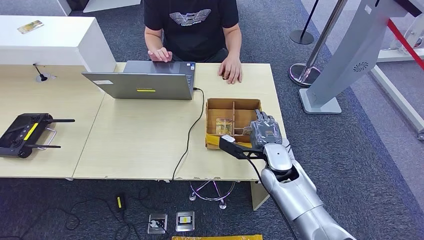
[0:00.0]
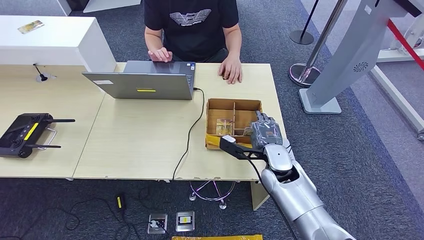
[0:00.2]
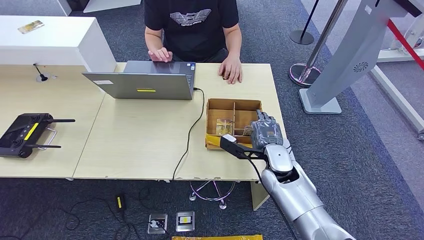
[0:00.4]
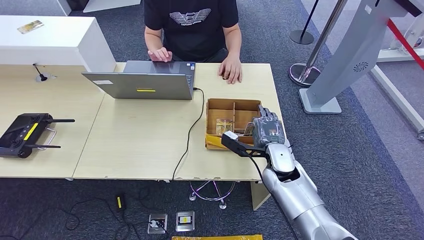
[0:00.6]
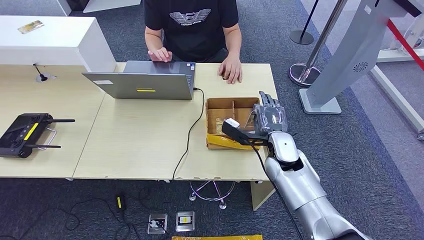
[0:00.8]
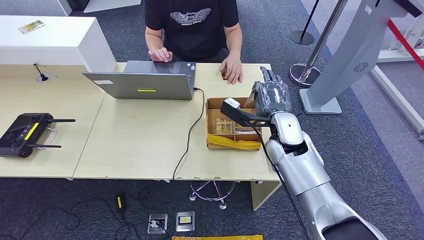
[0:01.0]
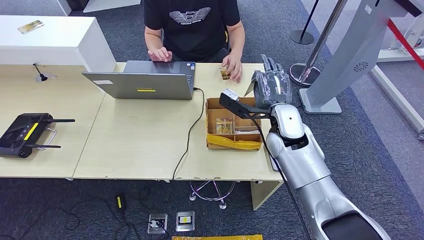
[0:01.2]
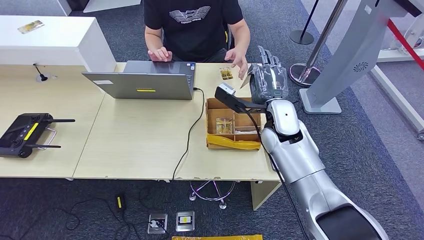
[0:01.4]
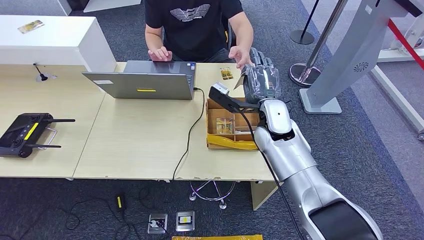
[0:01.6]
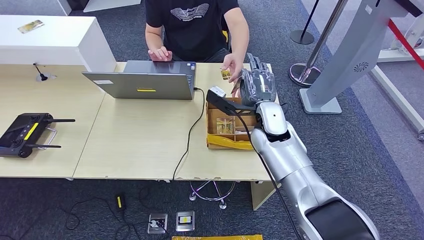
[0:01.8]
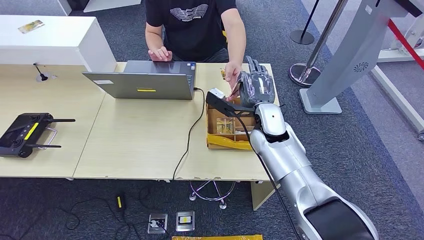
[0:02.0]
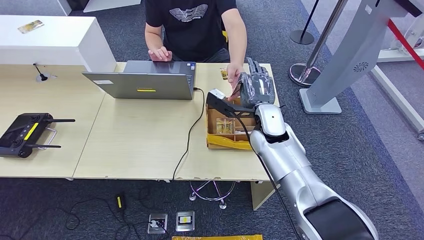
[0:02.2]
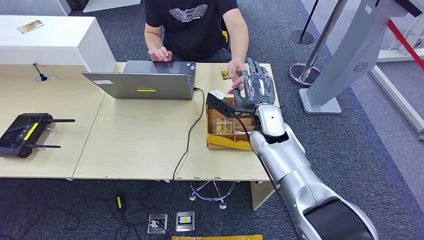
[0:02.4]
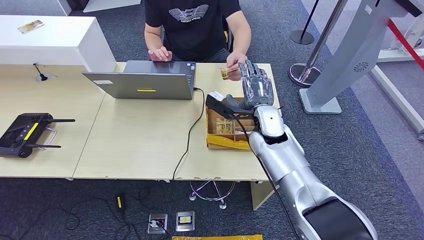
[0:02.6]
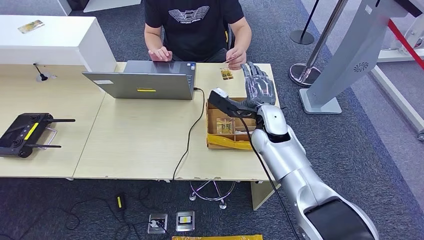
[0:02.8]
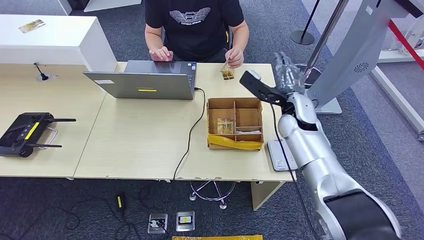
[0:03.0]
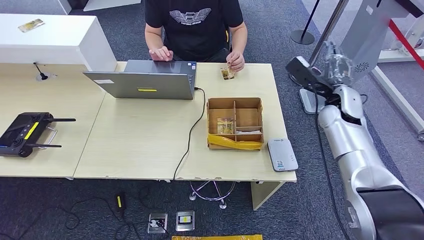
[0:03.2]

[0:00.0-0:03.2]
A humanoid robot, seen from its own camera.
Step, 1.2 to 3.2 s: Hand the room key to the person.
0.0 to 1.6 s: The right hand is displaced upward and forward by some 10 cm.
1.6 to 3.2 s: The right hand shifts approximately 20 cm to the right.

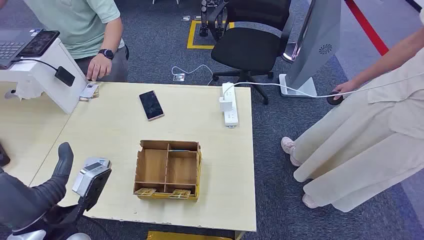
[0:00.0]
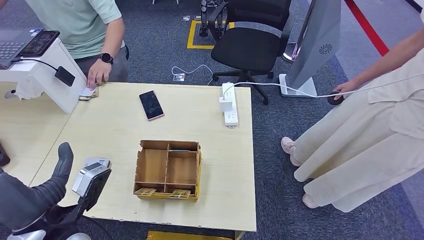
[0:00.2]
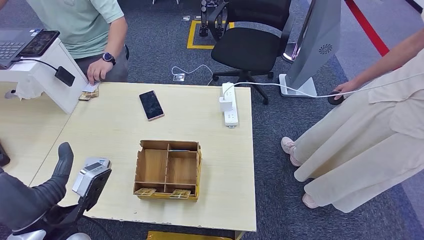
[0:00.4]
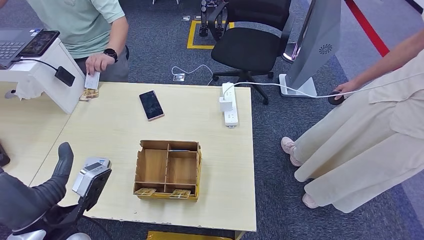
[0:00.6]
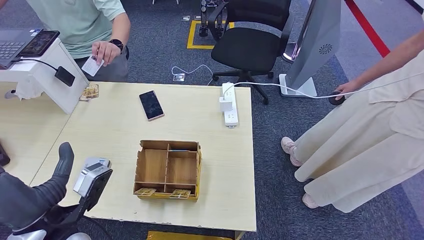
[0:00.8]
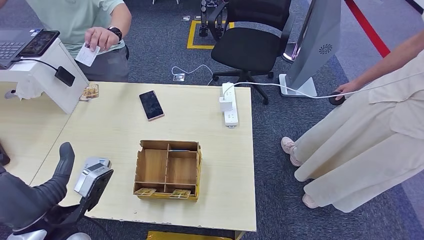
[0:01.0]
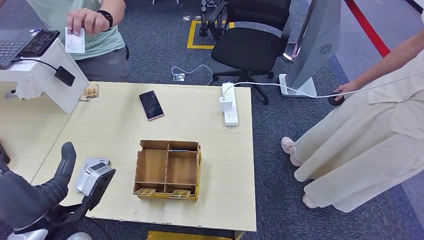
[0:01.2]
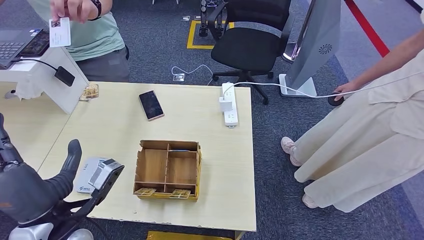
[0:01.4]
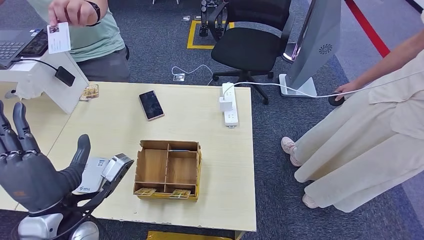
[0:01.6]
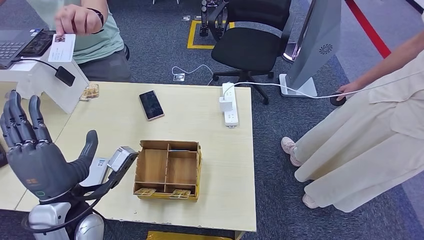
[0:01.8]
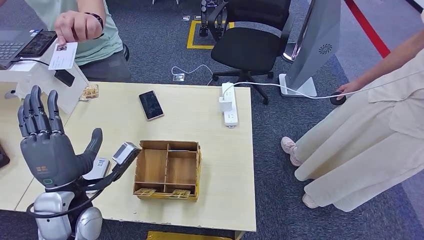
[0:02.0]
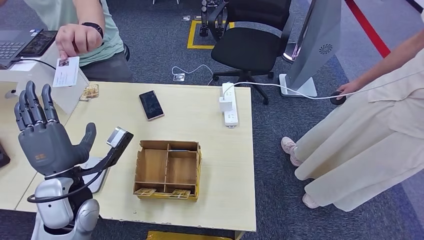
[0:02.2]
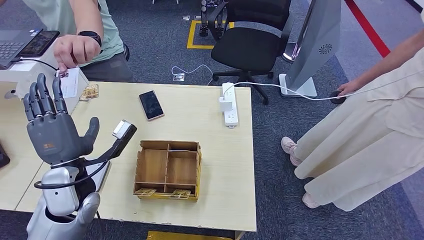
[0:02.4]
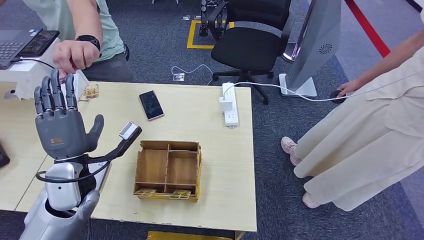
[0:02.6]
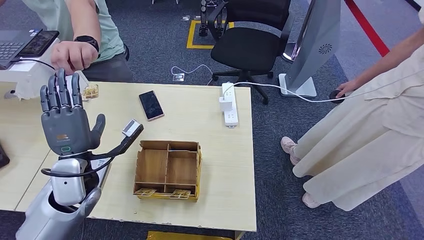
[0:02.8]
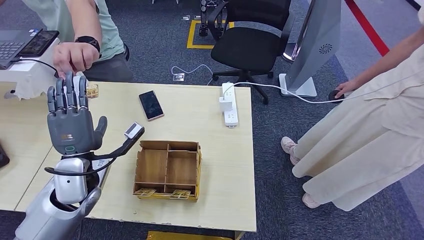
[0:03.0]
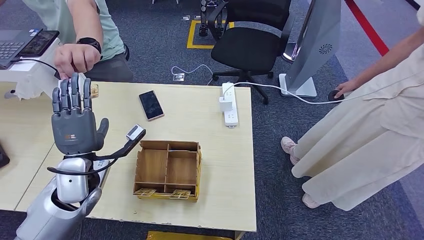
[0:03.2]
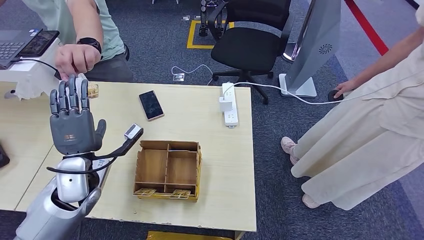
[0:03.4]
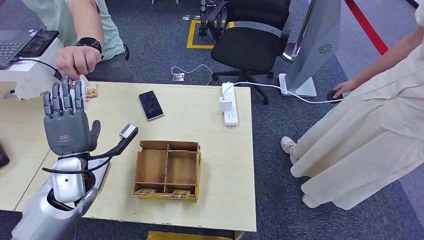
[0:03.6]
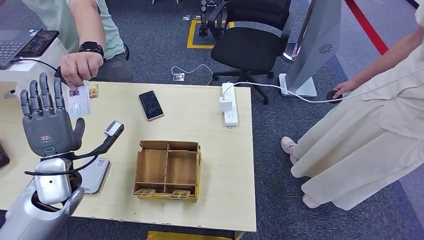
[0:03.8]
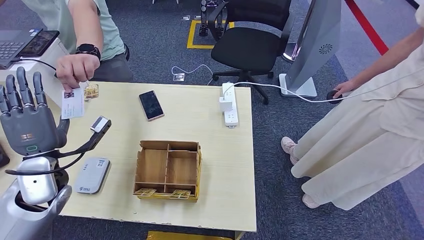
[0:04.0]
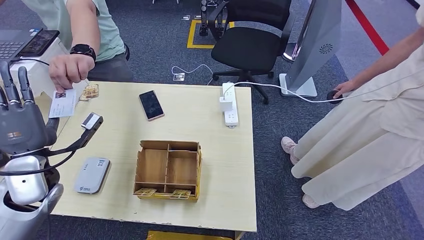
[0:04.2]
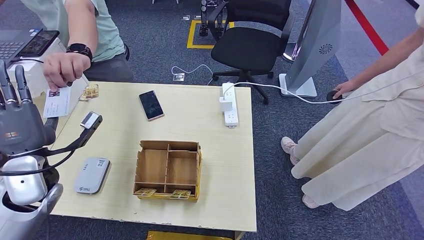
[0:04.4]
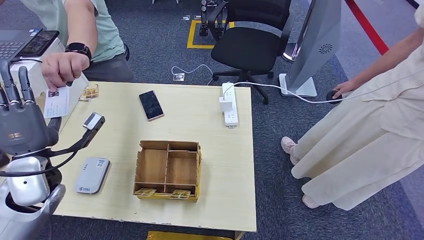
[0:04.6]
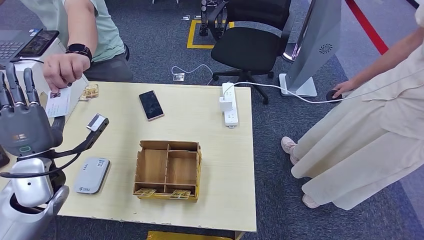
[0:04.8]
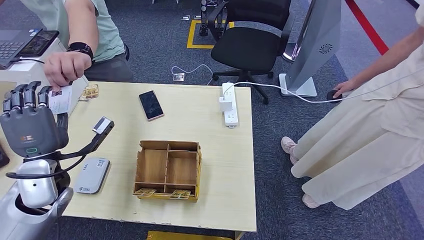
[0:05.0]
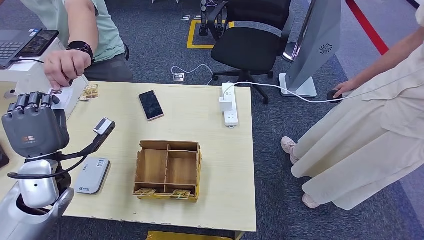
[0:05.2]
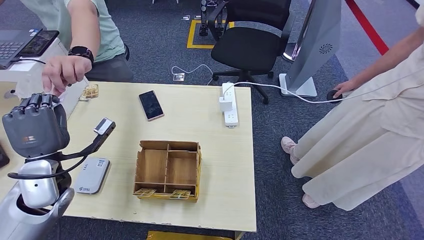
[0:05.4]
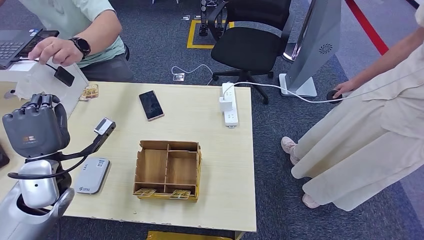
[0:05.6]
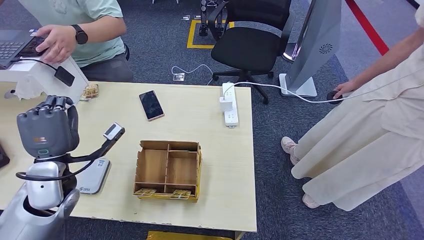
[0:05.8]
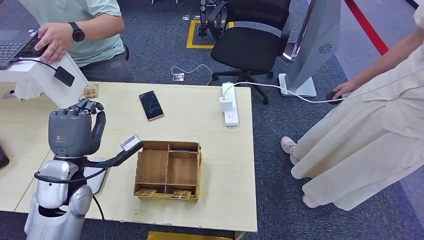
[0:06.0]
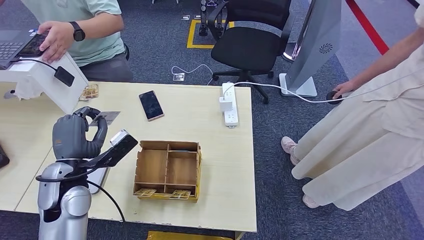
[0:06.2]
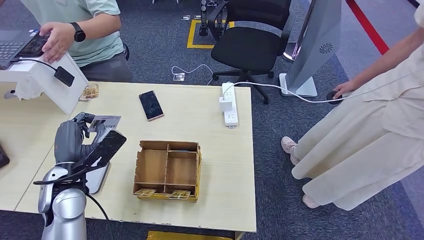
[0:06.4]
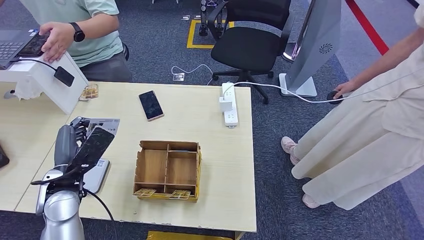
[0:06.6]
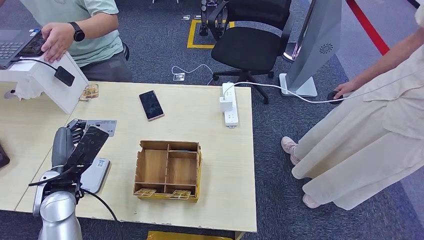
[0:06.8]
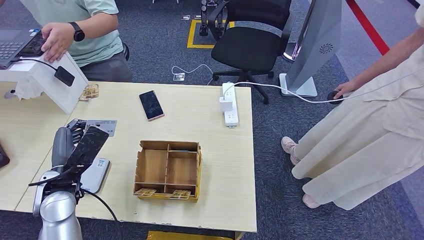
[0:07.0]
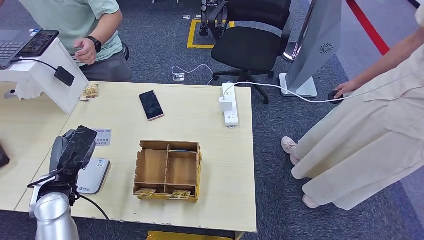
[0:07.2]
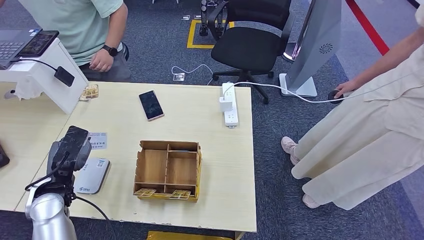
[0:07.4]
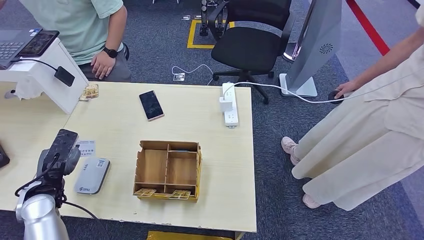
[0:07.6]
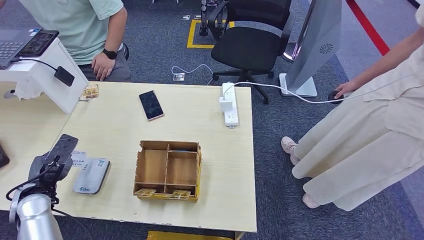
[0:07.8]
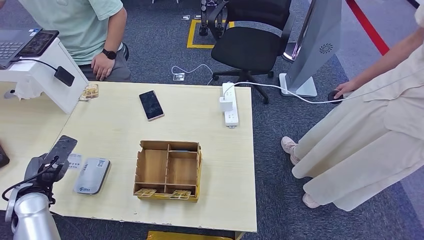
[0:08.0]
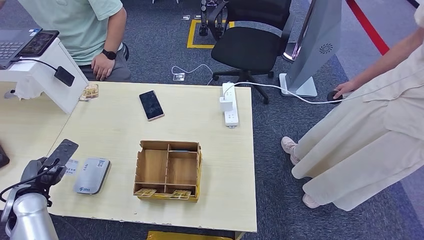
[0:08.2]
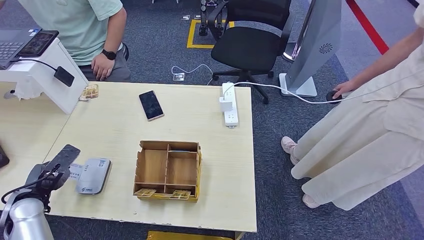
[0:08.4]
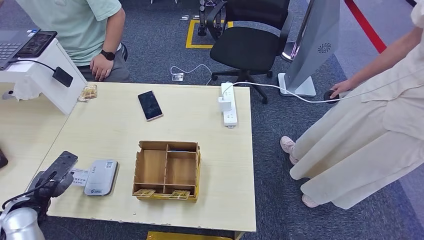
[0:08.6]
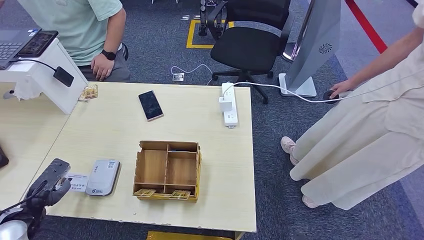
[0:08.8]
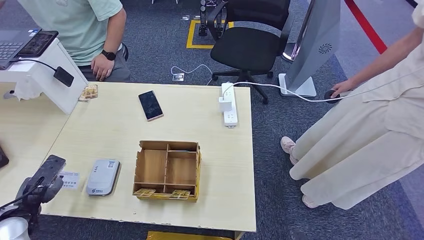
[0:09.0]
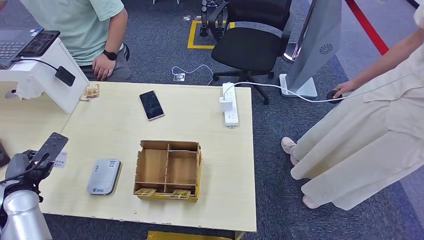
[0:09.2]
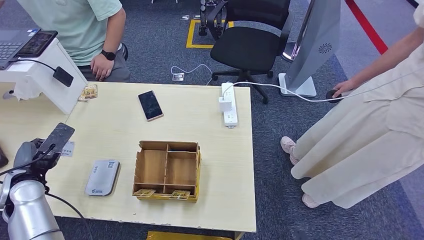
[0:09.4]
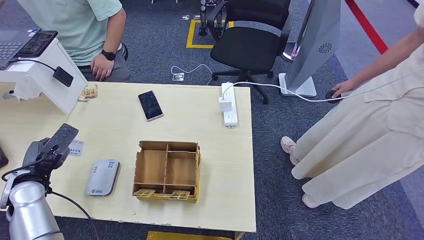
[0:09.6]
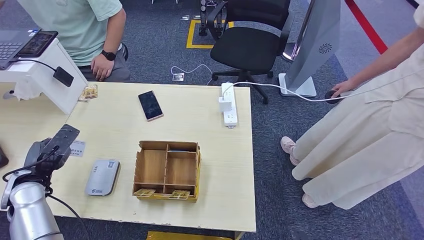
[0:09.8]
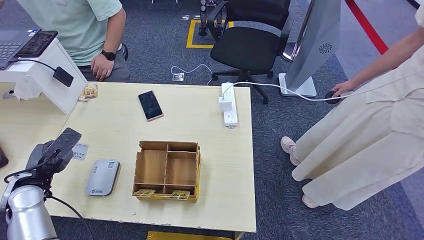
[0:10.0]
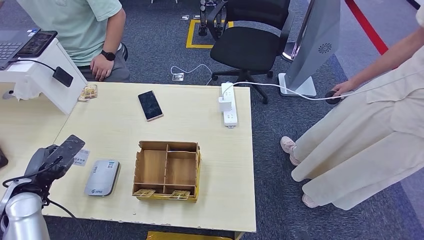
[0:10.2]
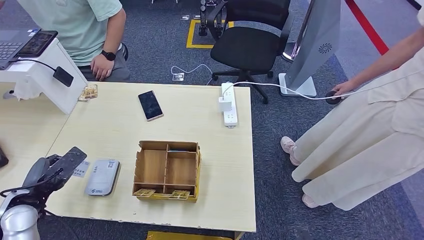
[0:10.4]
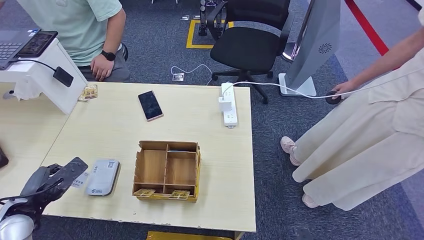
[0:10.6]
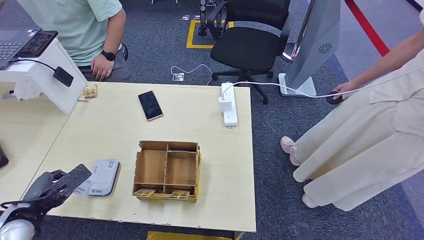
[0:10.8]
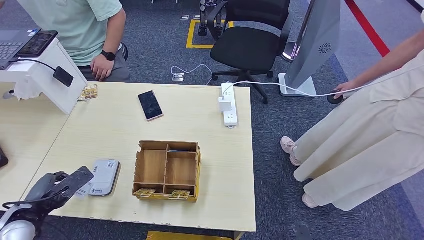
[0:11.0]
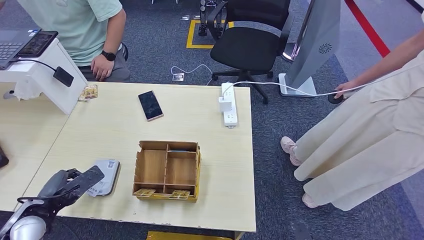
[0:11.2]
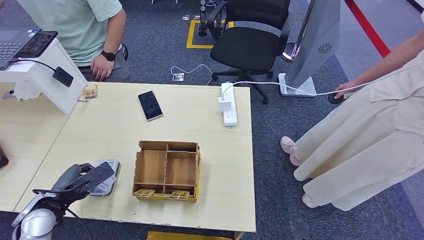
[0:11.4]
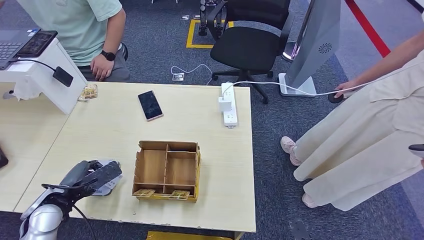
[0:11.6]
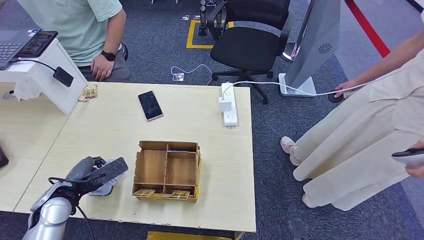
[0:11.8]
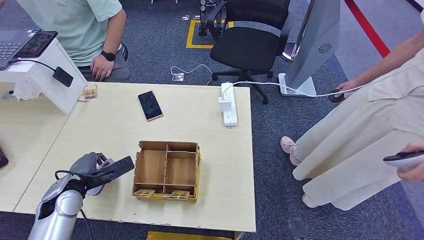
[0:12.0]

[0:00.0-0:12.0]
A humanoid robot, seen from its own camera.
Step, 0.0 to 3.0 s: Take the ID card from the person's hand.
Step, 3.2 to 9.2 s: Place the ID card on the card reader.
3.0 to 4.4 s: The left hand heads to the left, covering about 5 cm.
4.4 to 6.0 s: The left hand moves about 5 cm.
6.0 to 7.6 s: The left hand goes about 10 cm to the left and downward.
7.6 to 9.0 s: The left hand goes about 5 cm to the left.
10.4 to 12.0 s: The left hand goes some 5 cm to the right.

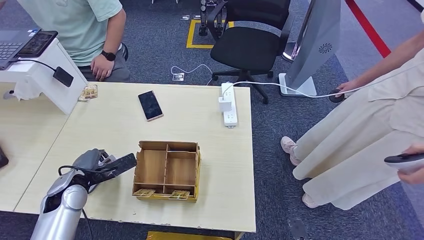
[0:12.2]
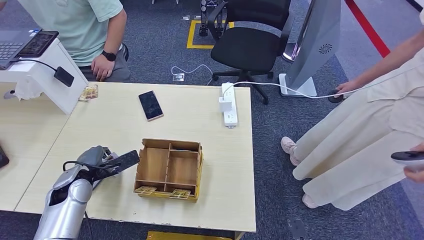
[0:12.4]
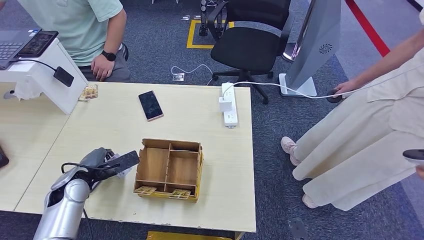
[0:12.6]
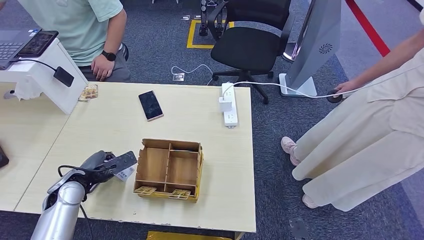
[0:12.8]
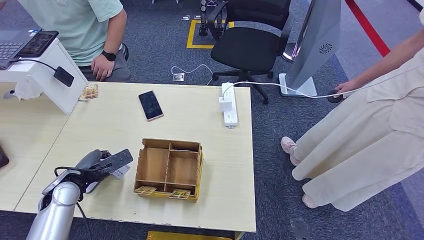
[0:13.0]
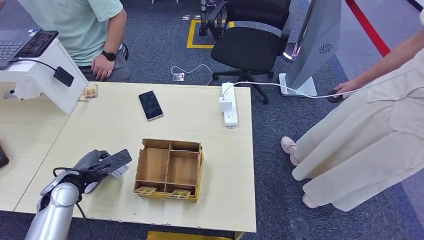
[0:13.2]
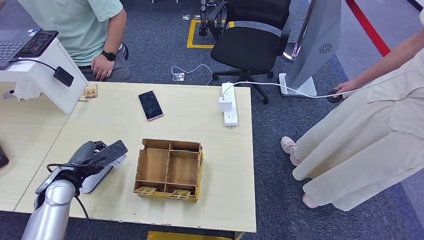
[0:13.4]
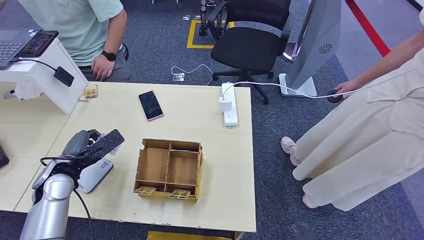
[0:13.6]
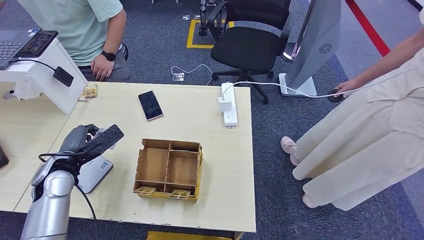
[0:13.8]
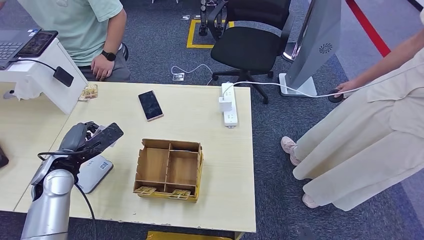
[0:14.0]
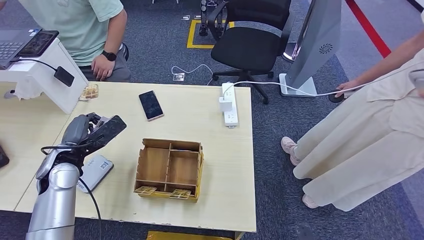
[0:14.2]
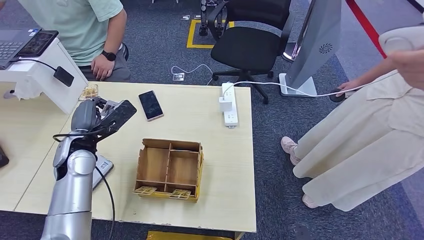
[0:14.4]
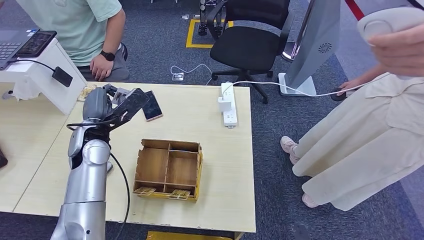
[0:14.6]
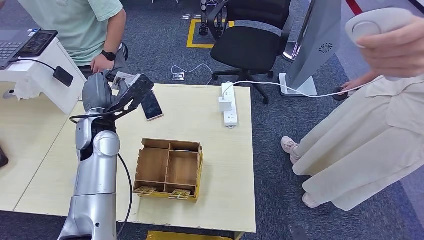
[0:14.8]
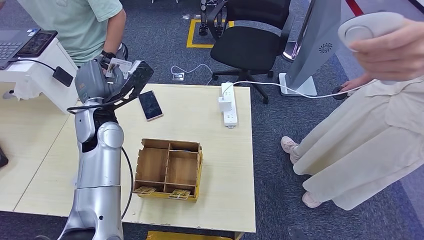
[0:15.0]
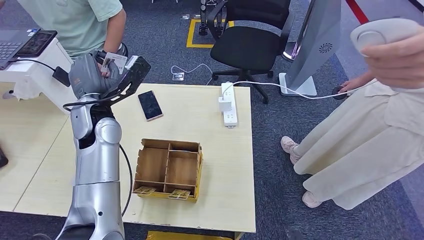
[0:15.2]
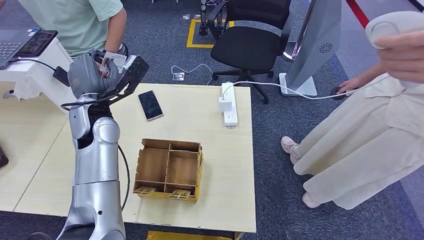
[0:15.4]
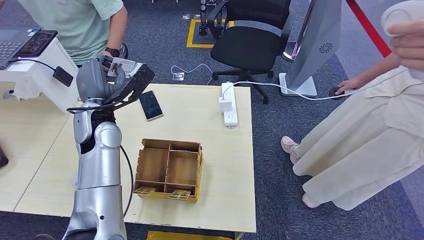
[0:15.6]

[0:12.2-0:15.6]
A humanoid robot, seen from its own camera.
12.2 to 13.8 s: The left hand is displaced upward by about 5 cm.
13.8 to 15.6 s: The left hand moves to the right, upward and forward, roughly 20 cm.
